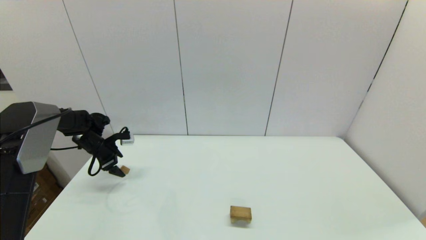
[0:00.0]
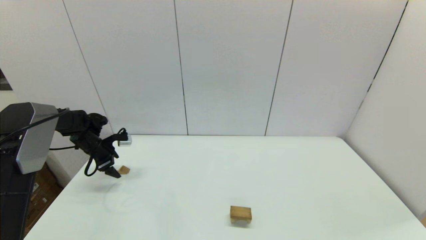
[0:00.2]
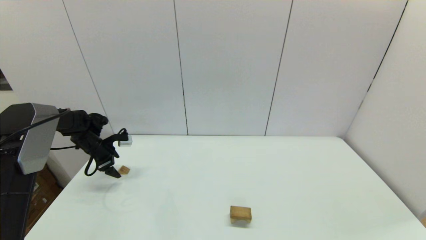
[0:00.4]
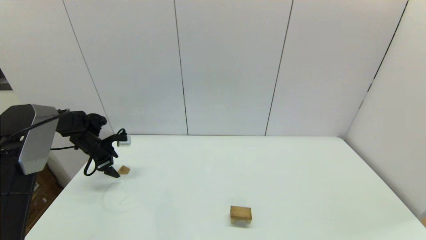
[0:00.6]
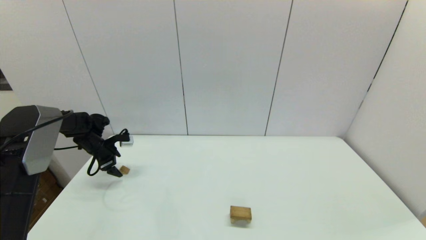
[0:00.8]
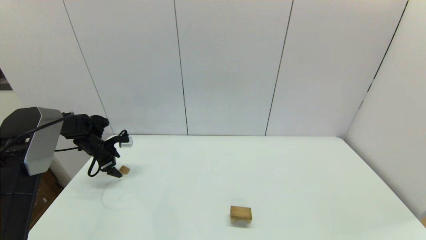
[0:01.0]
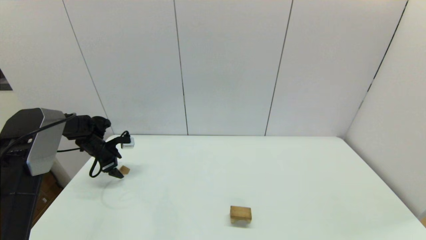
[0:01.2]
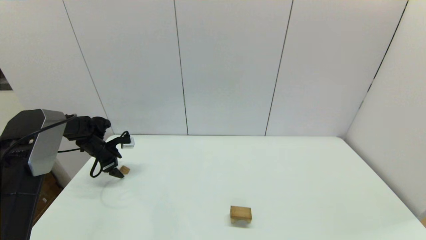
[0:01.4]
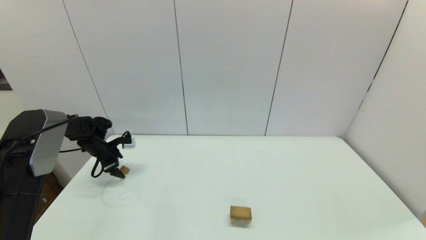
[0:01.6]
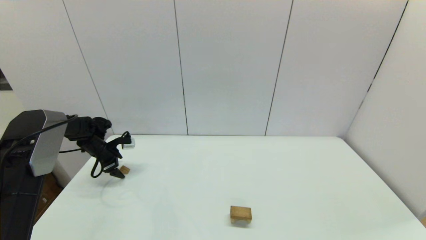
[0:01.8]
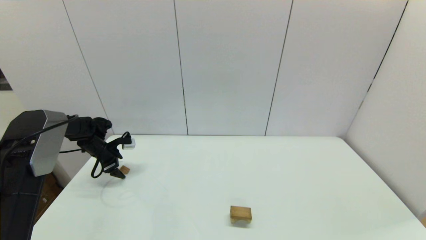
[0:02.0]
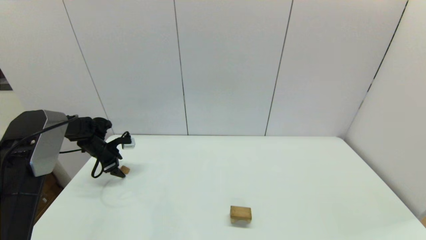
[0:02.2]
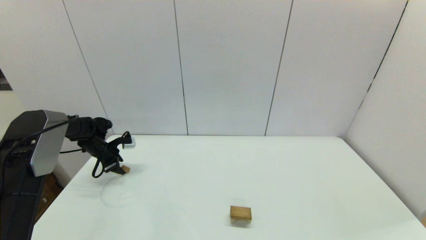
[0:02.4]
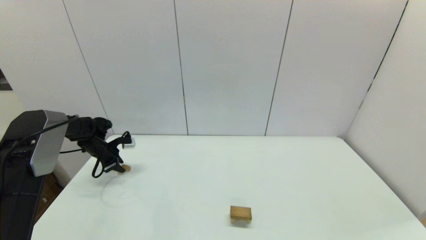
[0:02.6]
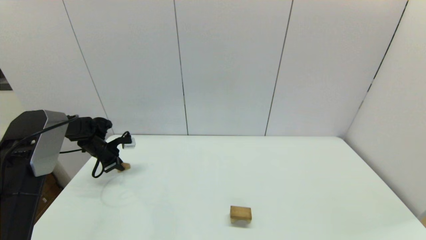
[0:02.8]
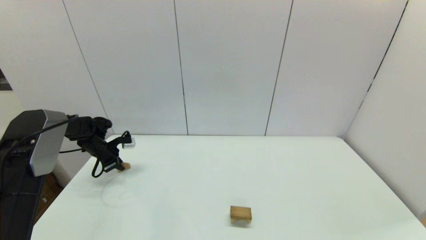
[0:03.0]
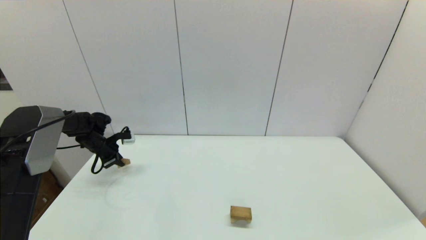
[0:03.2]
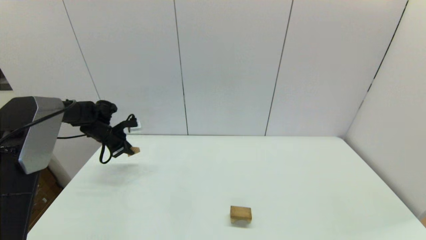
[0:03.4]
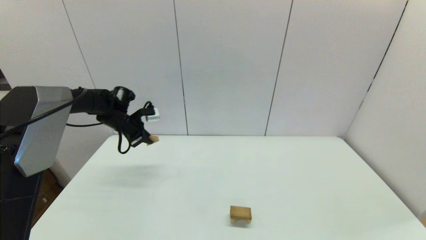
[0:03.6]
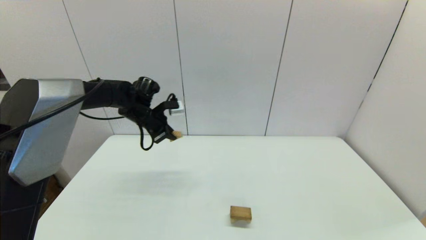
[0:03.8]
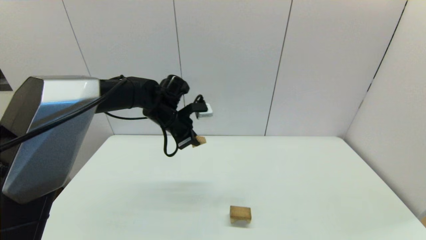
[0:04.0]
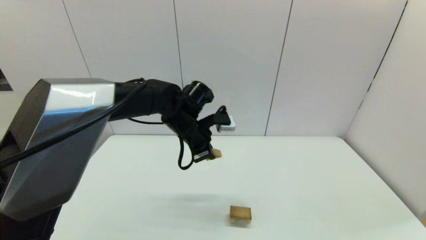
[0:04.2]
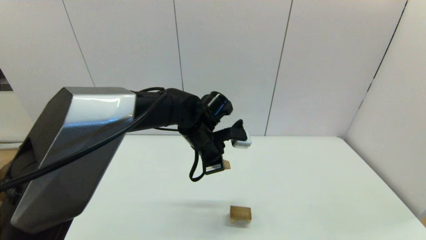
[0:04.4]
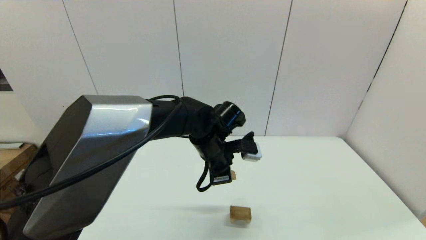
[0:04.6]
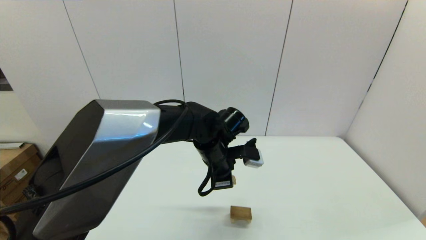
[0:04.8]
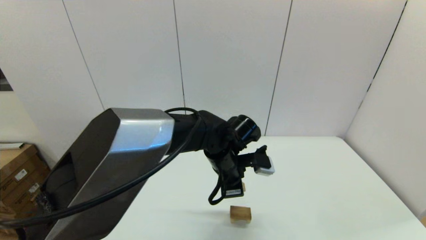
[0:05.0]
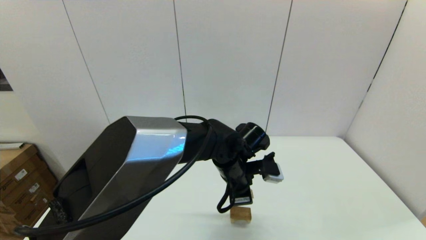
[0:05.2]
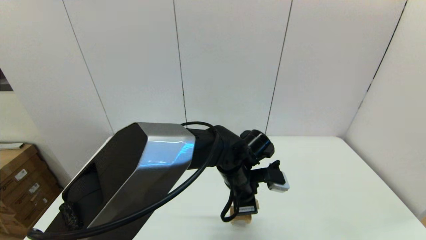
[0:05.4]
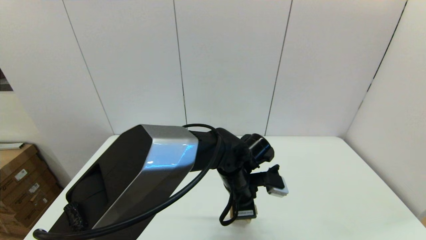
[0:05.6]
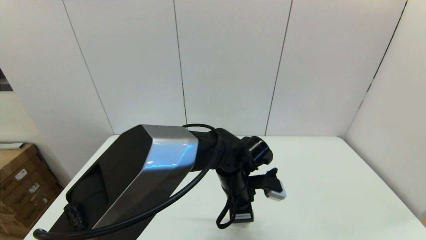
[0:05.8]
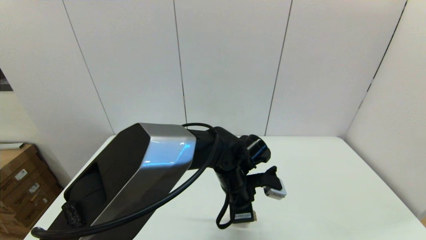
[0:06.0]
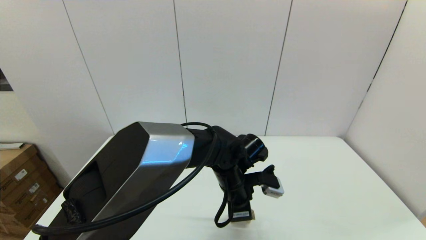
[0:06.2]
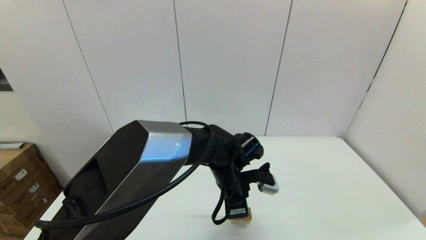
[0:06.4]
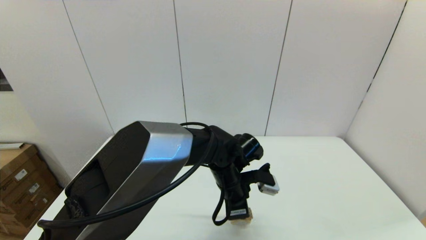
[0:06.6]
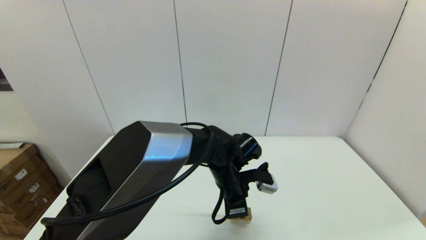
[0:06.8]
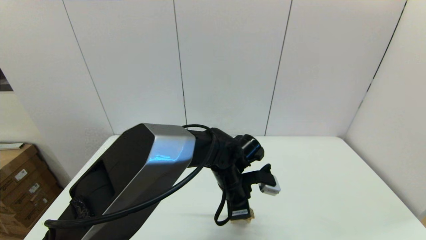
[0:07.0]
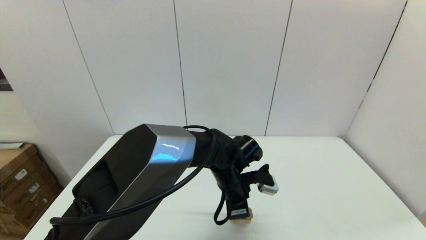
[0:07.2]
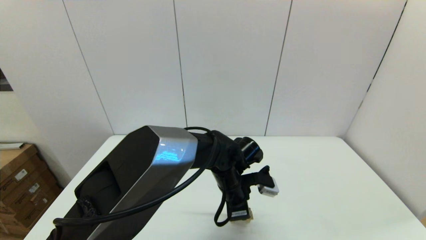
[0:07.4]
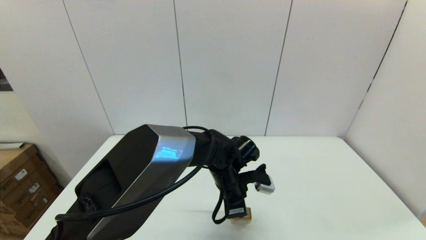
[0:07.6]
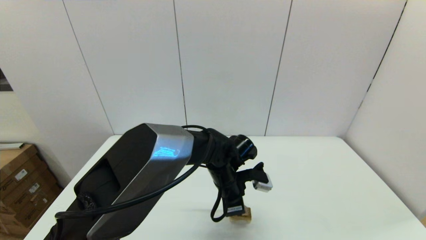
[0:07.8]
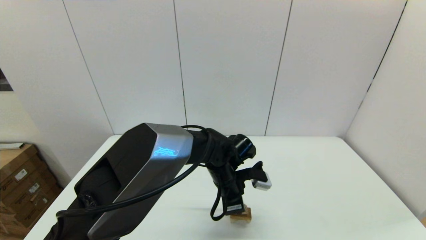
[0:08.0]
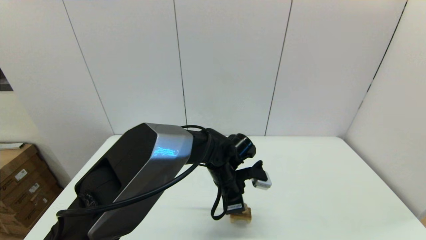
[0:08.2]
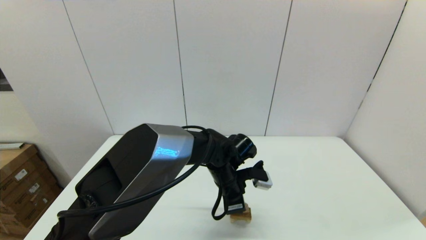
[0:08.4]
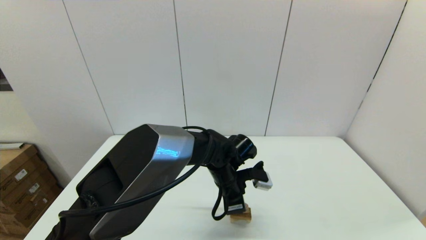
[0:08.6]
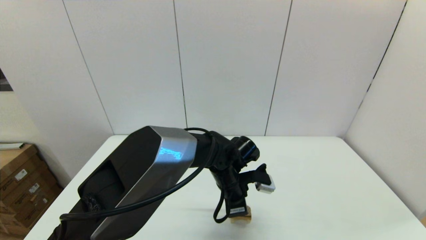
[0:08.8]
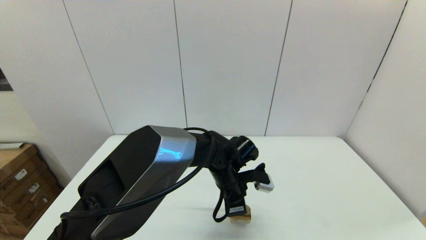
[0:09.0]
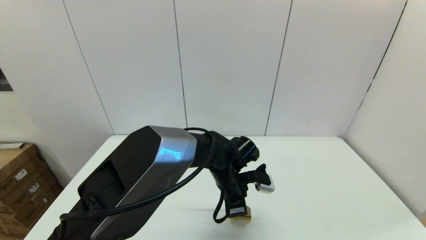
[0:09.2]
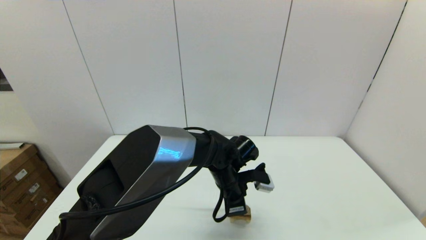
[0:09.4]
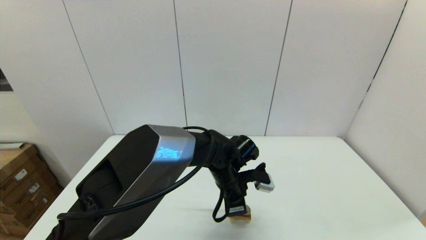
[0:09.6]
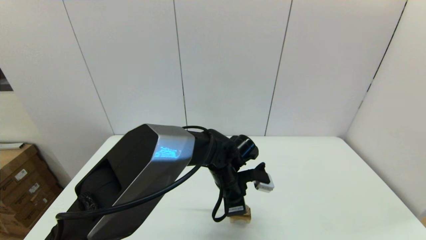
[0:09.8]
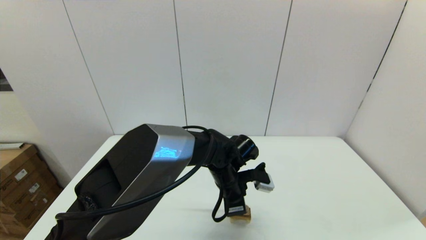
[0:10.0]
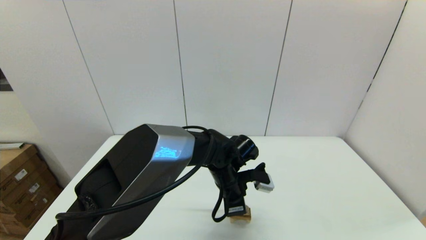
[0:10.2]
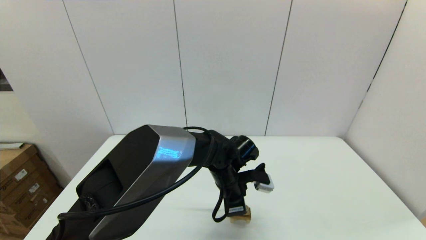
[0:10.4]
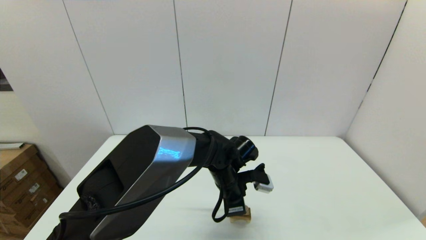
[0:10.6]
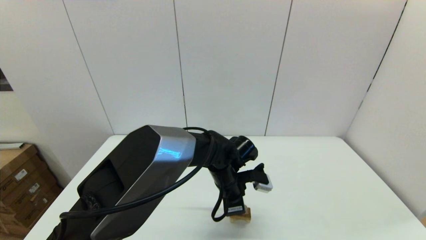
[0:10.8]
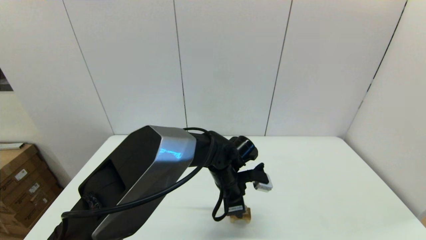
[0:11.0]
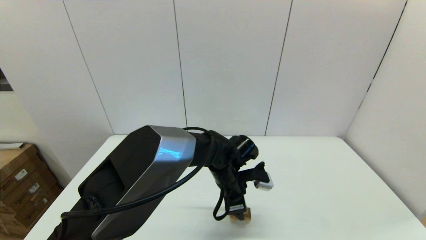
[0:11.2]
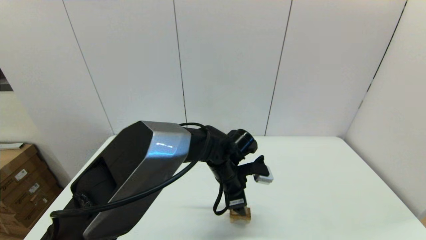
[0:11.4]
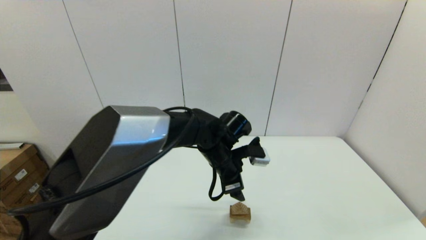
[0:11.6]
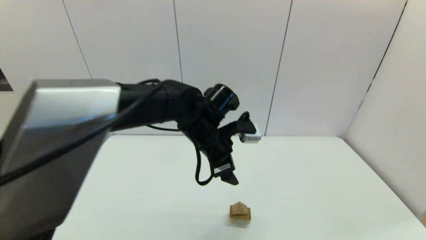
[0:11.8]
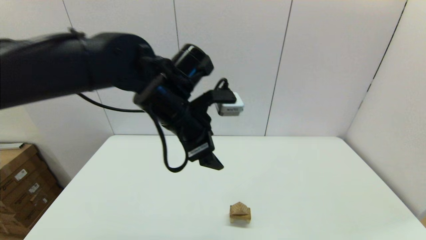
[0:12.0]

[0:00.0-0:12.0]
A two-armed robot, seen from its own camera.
Task of the whole recording: place the arched building blocks in the center of the table, set up the rectangular building blocks, and then set up the triangular building blocks.
Step, 0:00.0 to 0:02.6: Grasp the triangle-shaped block with the left gripper.
0:00.0 to 0:01.6: There are only small adjustments of the grippers.
0:03.0 to 0:04.4: The left gripper goes about 35 cm to the right.
0:04.4 to 0:06.0: The left gripper shifts approximately 10 cm downward, to the right and backward.
0:06.0 to 0:07.6: The grippers make only small movements.
0:07.6 to 0:10.4: The two grippers keep their place.
0:10.4 to 0:12.0: The left gripper is displaced upward and to the left by roughly 25 cm, and opens.

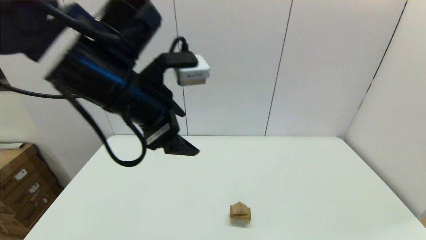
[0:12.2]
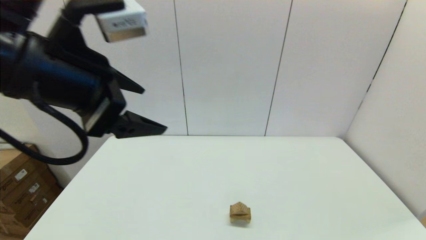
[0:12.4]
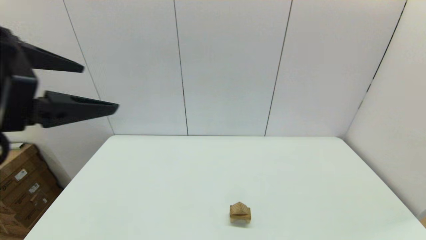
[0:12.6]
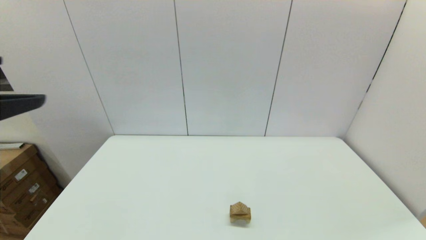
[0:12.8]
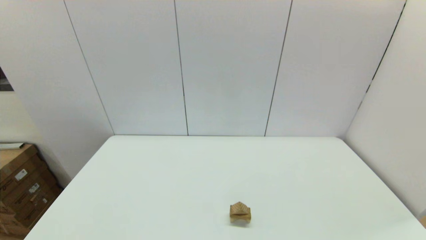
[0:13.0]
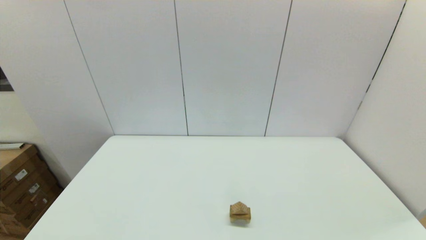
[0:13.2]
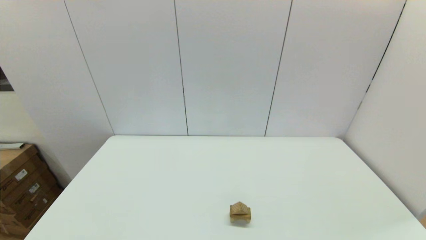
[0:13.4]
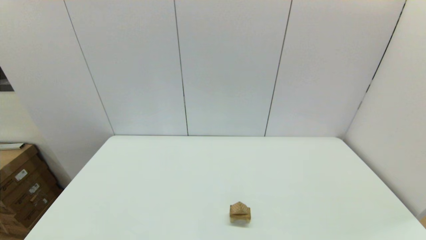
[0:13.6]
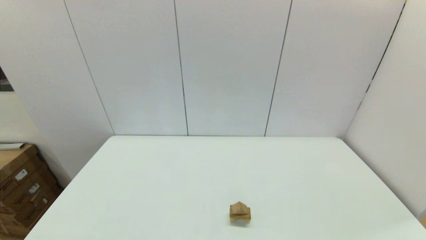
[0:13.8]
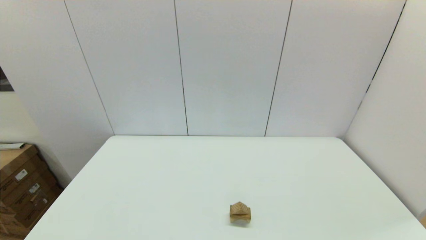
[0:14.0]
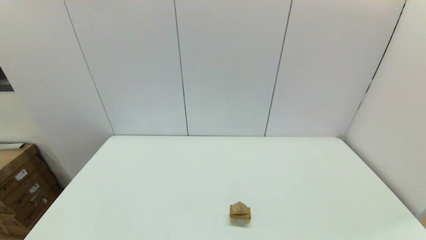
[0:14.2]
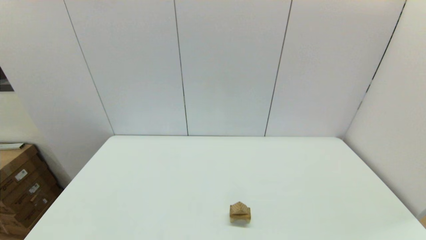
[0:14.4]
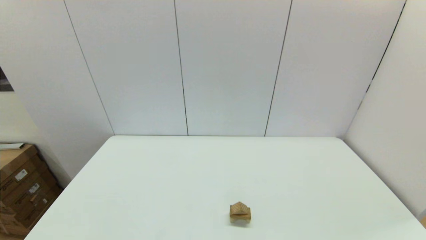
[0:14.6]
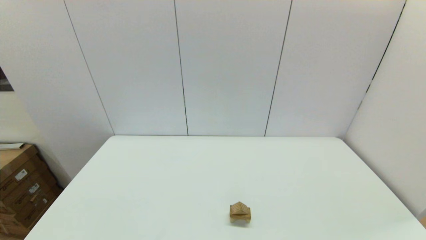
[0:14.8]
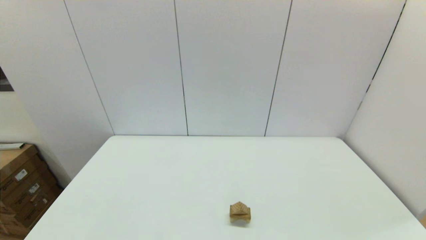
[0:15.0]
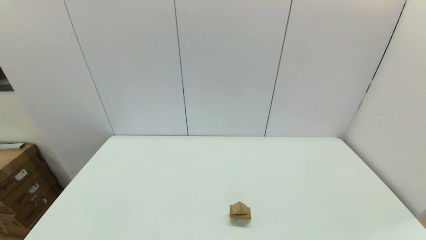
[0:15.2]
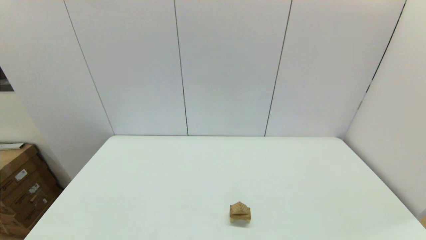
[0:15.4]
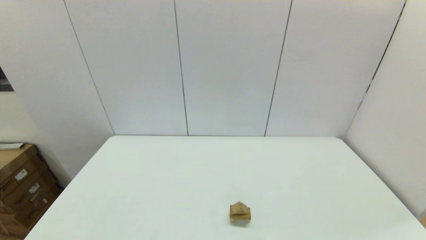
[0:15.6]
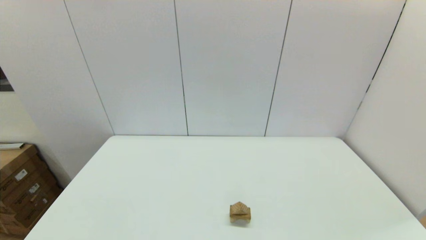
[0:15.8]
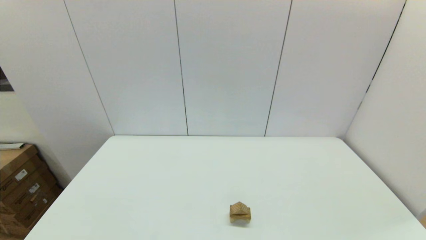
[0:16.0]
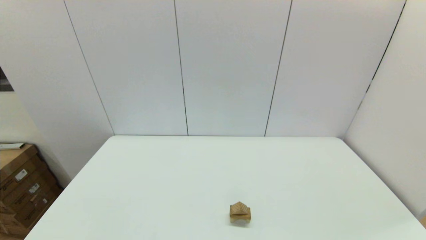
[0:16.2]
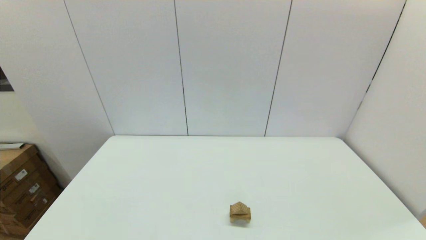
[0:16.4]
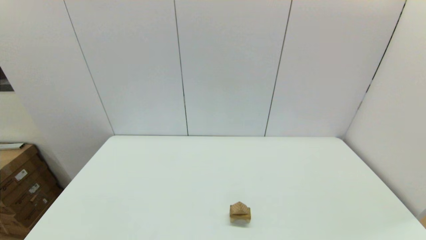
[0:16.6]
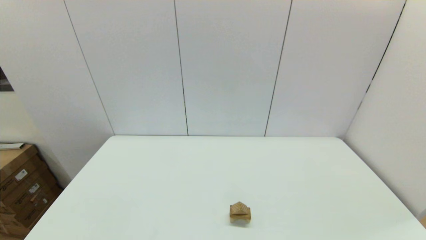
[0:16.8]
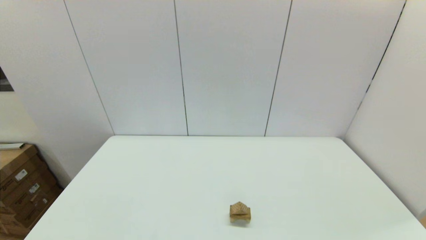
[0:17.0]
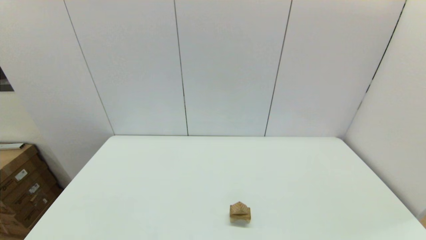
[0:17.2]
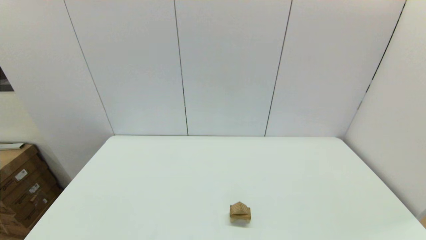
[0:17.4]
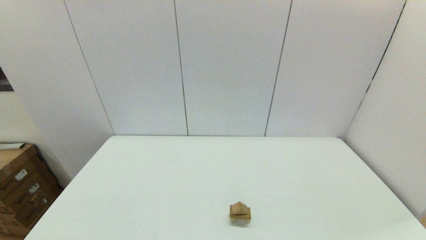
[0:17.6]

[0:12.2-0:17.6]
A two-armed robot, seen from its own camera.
Task of the whole recording: place the arched building blocks in the center of the table, set up the rectangular building blocks, and then set up the triangular building blocks.
0:12.2 to 0:13.6: The left gripper shifts roughly 35 cm backward and to the left.
0:15.0 to 0:17.6: Both grippers stay put.
